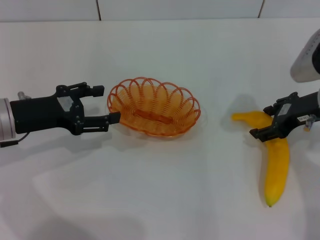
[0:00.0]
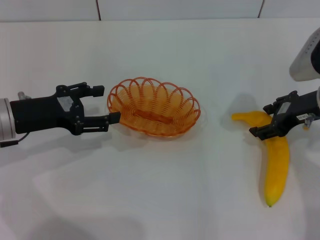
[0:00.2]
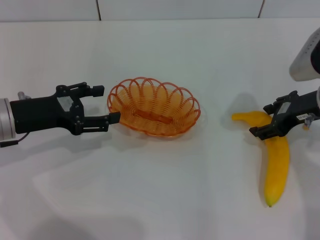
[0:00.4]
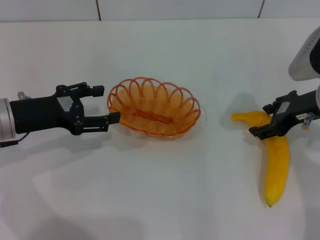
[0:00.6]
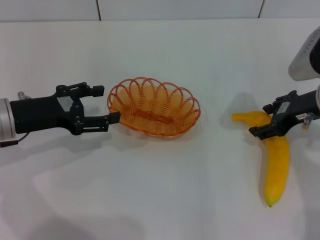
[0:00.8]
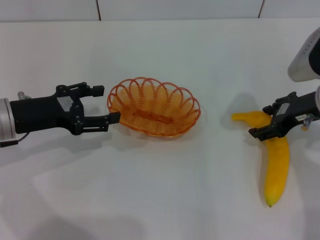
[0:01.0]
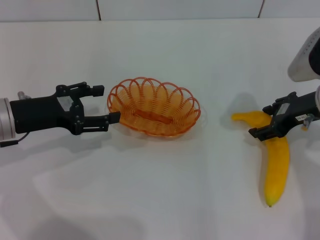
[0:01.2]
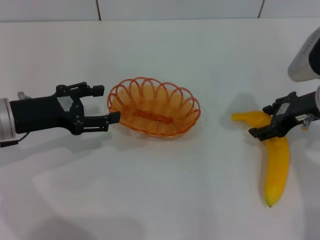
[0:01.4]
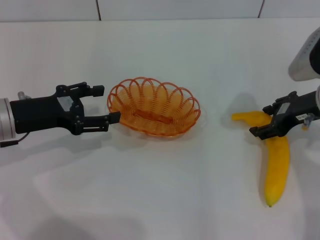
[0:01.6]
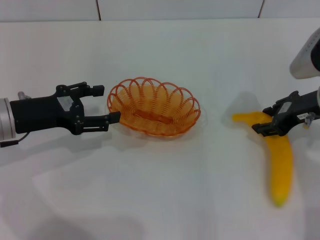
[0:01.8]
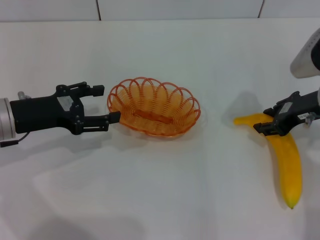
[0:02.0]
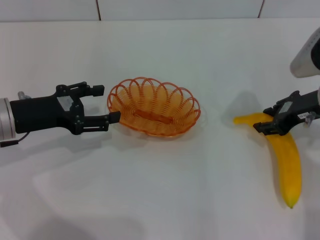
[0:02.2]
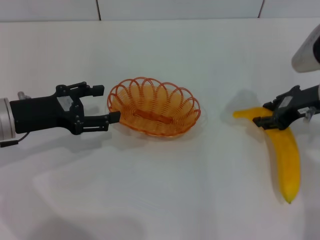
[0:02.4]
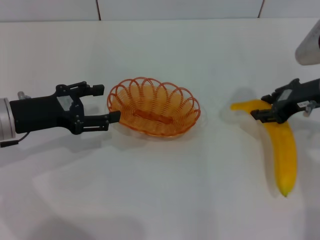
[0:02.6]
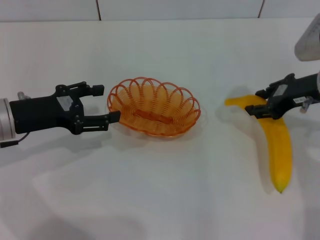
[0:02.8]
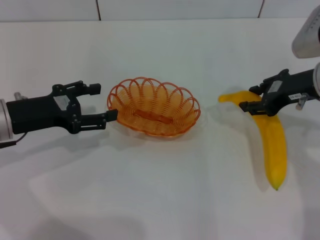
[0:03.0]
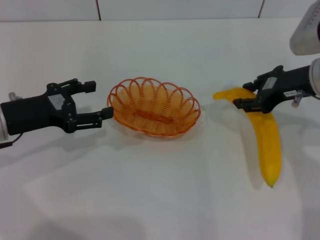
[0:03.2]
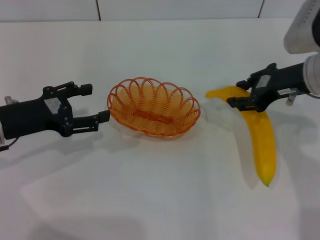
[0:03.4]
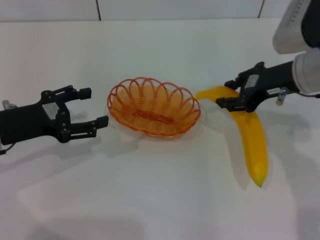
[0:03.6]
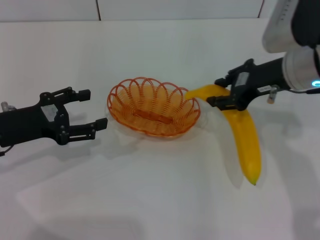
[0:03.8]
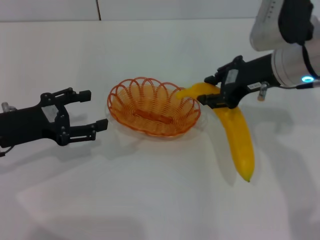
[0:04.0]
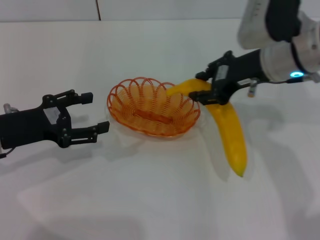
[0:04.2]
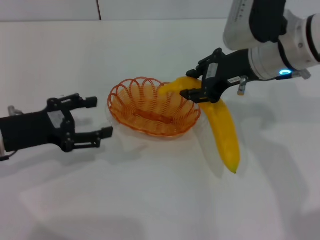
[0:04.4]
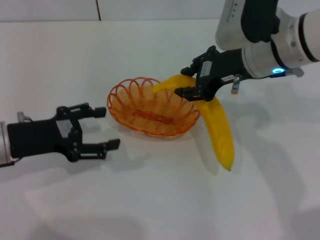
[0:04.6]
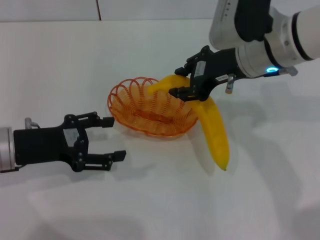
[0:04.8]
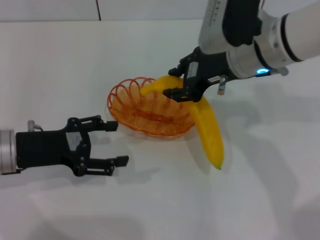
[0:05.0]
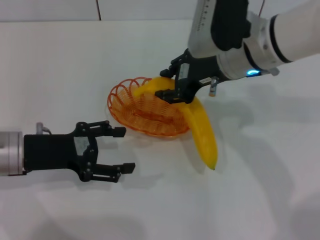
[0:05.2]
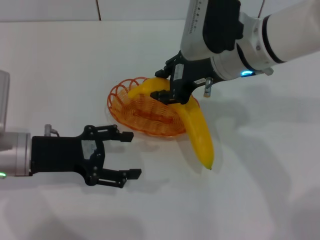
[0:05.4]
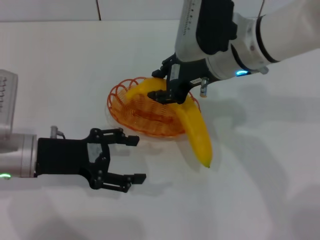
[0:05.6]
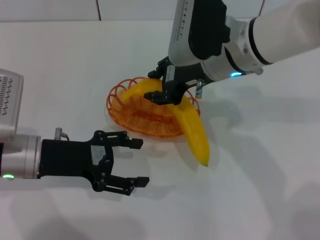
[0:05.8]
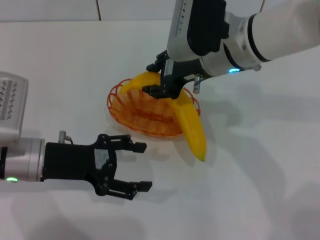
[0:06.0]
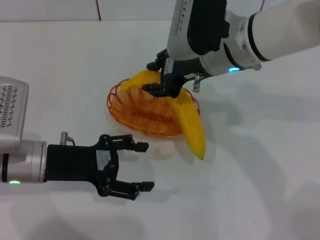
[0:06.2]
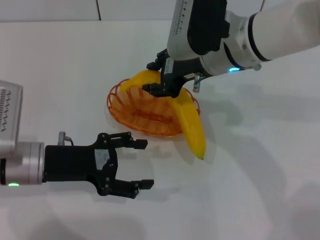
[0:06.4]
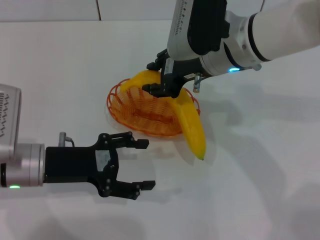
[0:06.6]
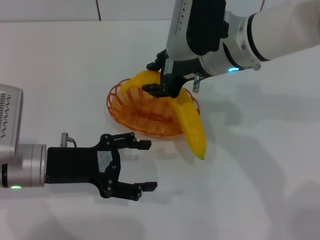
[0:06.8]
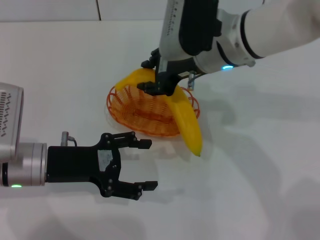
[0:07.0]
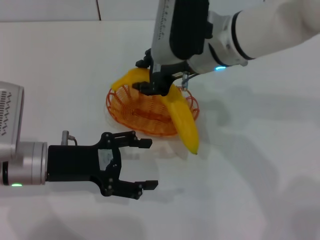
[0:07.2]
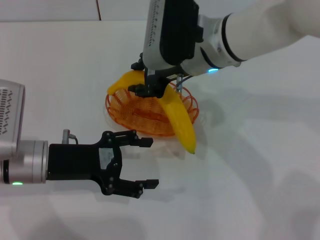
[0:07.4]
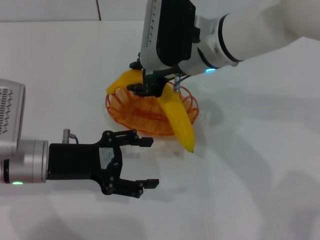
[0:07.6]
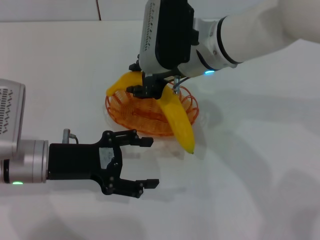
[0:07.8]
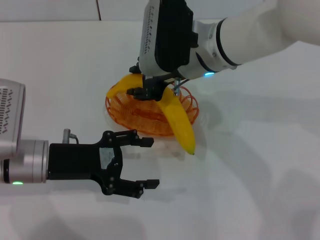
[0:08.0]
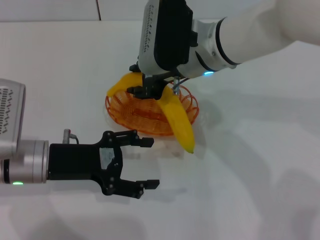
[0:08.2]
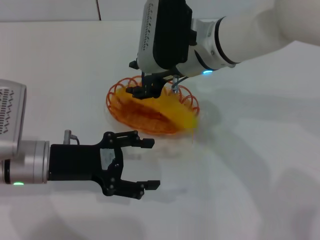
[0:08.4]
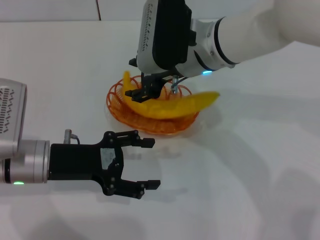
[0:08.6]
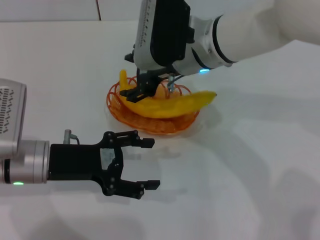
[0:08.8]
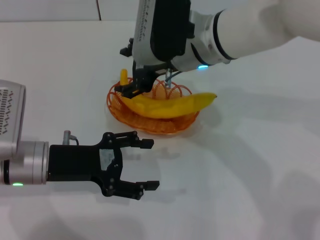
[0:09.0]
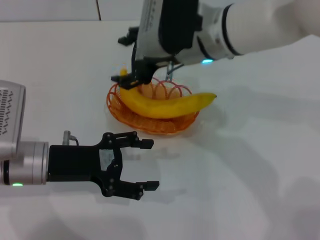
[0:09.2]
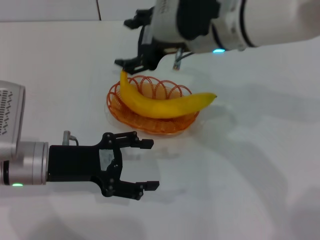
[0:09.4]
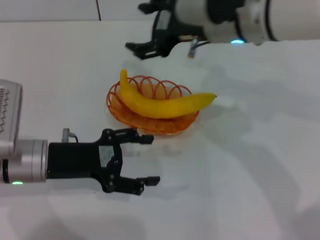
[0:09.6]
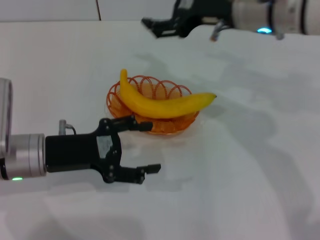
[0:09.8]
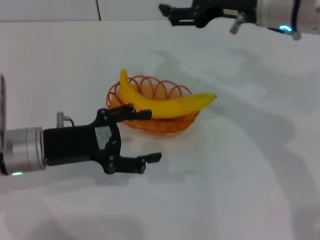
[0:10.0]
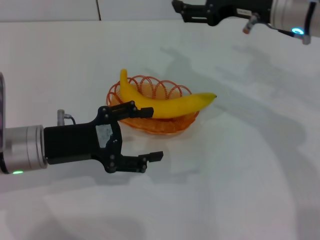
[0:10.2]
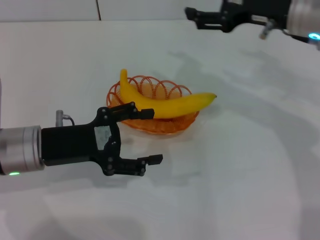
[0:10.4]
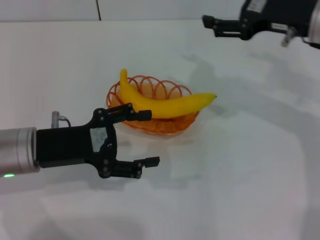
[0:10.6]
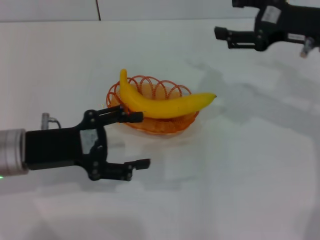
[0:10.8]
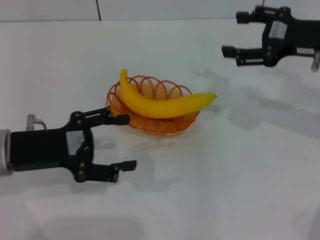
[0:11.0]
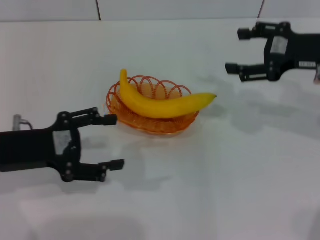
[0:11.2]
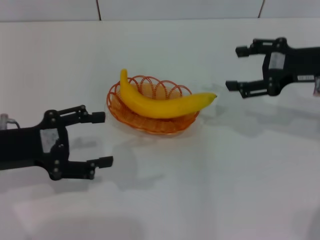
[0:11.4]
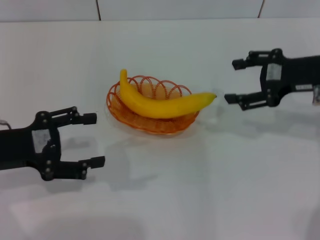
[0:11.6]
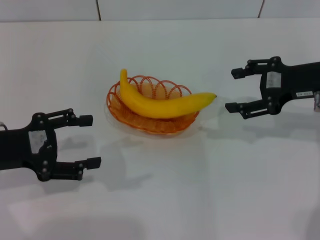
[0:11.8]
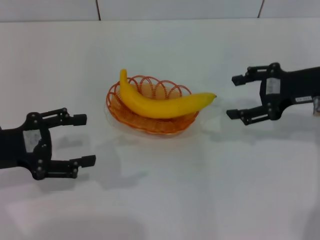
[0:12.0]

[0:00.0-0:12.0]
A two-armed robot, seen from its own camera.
Step, 0:00.0 to 0:02.8: Pick up the banana with the right gripper.
Step, 0:03.0 to 0:09.0: Place the banana into the basket with the right gripper.
0:00.0 to 0:01.6: The two grippers keep their place.
0:01.6 to 0:03.0: The right gripper closes.
0:03.0 to 0:04.4: The right gripper goes about 10 cm to the left.
0:04.4 to 0:06.0: The right gripper shifts some 5 cm to the left. Meanwhile the left gripper is displaced to the right by approximately 5 cm.
0:06.0 to 0:07.6: The grippers make only small movements.
0:07.6 to 0:09.0: The right gripper opens its fingers.
0:09.0 to 0:10.4: The right gripper shifts roughly 15 cm to the right.
0:10.4 to 0:12.0: The right gripper shifts roughly 5 cm to the right. Meanwhile the left gripper is displaced to the left by some 10 cm.

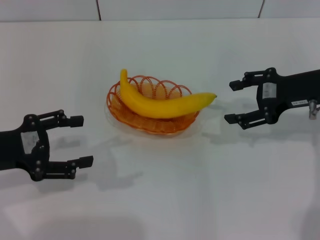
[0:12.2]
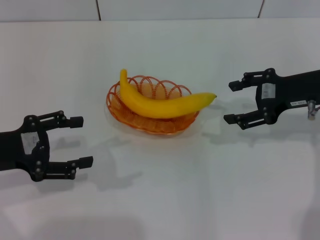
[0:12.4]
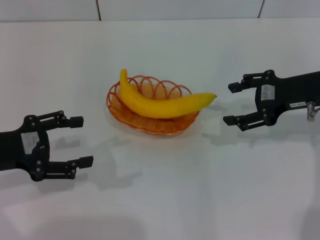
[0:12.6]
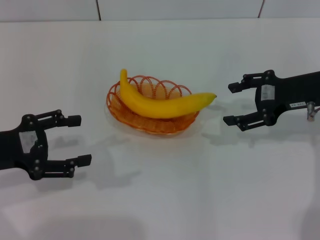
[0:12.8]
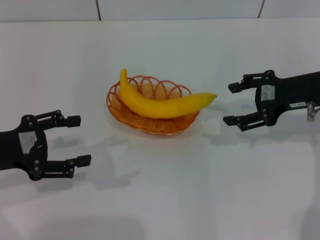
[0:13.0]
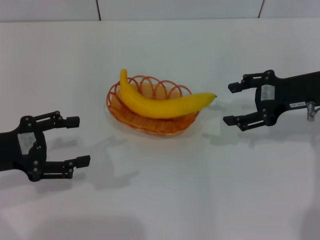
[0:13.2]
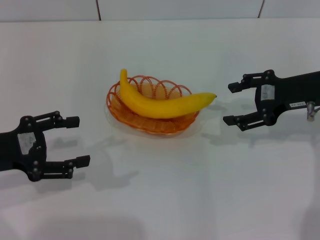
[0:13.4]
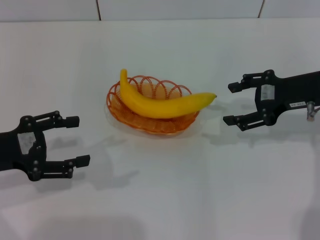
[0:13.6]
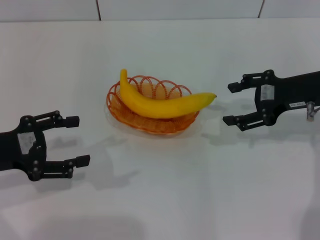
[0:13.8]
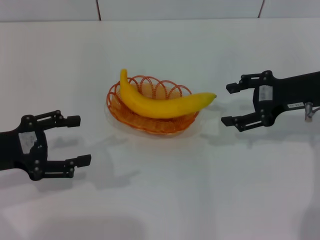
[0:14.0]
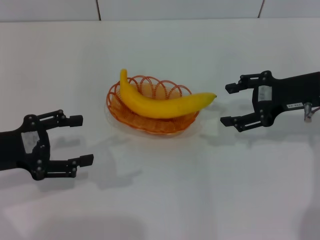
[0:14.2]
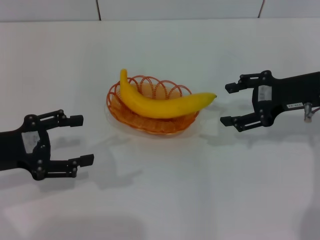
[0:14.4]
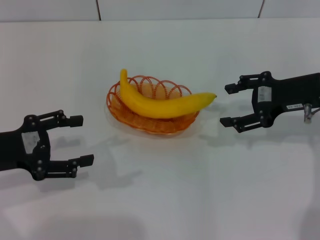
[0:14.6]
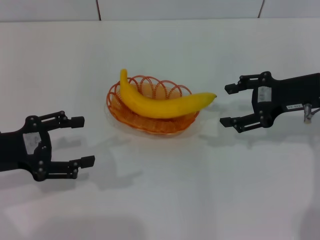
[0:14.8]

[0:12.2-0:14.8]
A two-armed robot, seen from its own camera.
0:12.2 to 0:14.8: The two grippers keep their place.

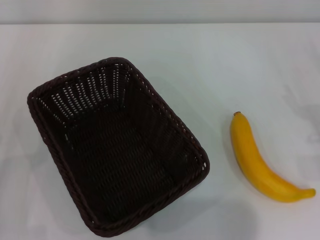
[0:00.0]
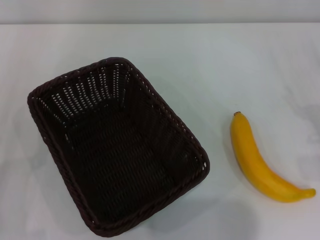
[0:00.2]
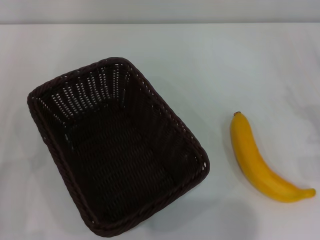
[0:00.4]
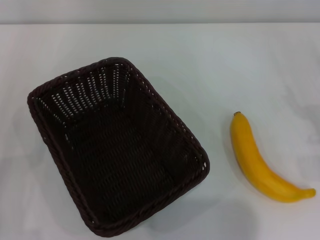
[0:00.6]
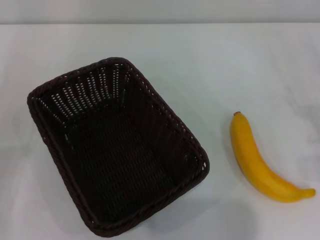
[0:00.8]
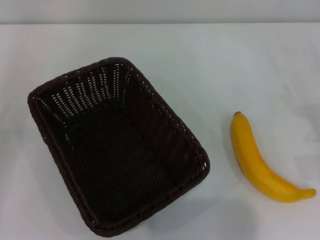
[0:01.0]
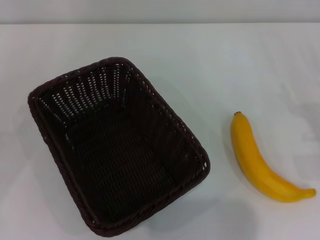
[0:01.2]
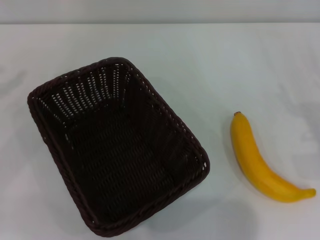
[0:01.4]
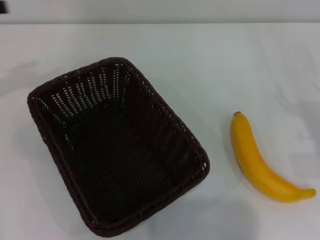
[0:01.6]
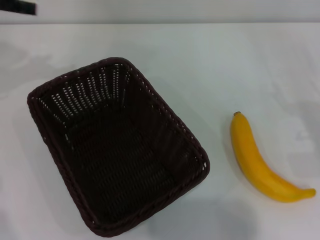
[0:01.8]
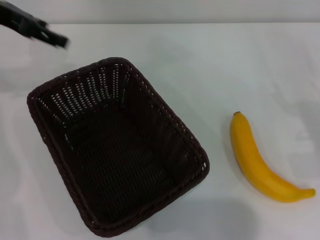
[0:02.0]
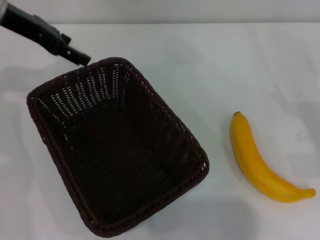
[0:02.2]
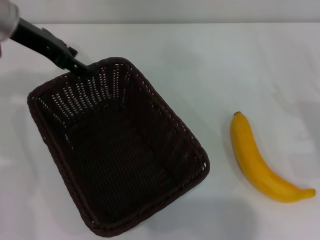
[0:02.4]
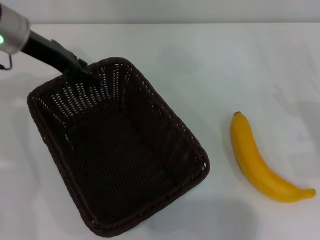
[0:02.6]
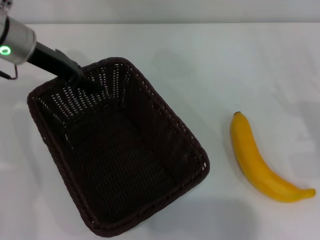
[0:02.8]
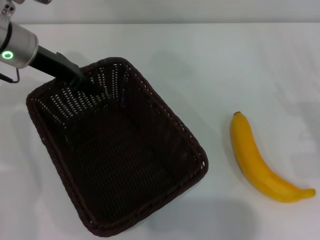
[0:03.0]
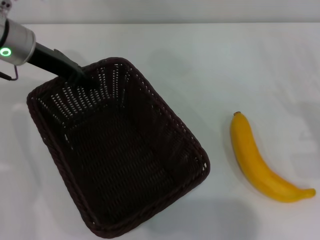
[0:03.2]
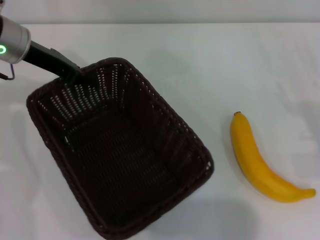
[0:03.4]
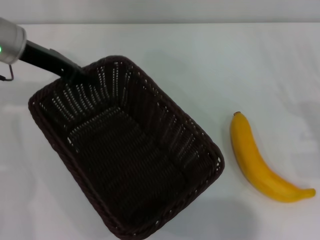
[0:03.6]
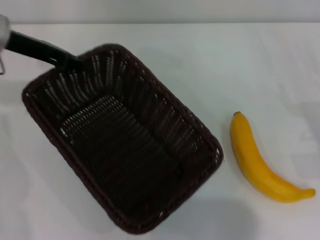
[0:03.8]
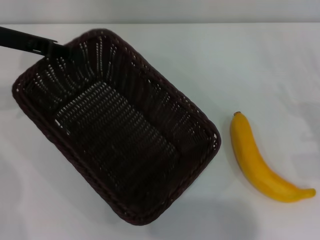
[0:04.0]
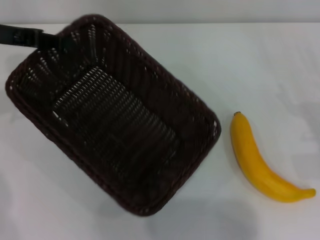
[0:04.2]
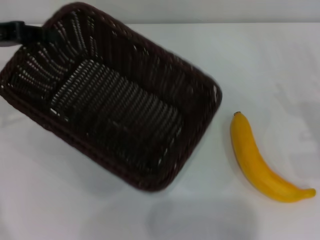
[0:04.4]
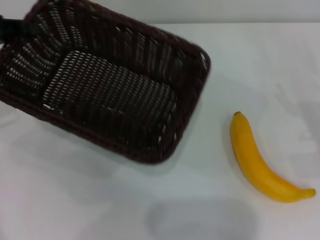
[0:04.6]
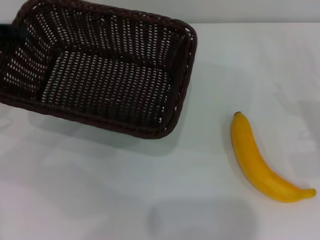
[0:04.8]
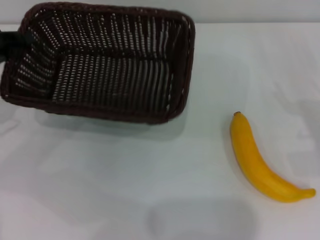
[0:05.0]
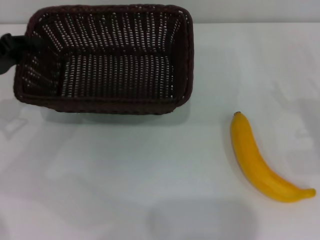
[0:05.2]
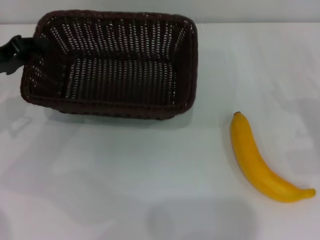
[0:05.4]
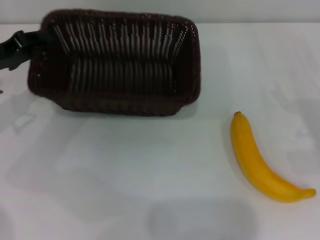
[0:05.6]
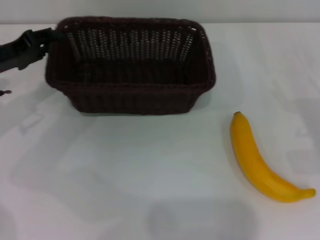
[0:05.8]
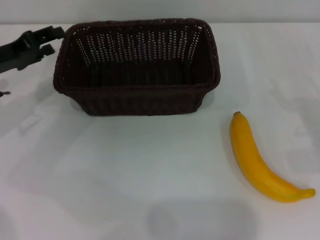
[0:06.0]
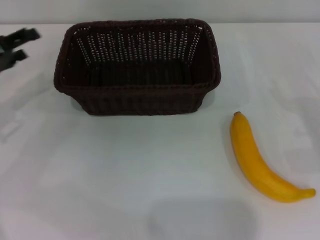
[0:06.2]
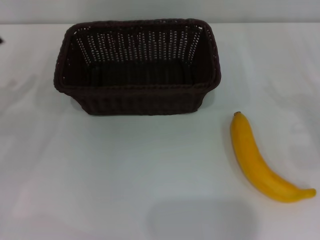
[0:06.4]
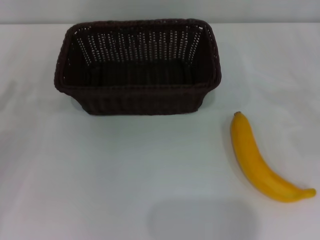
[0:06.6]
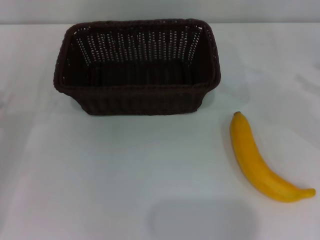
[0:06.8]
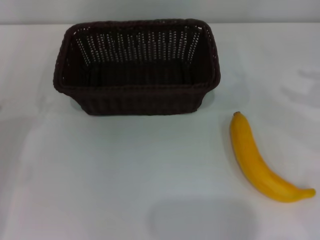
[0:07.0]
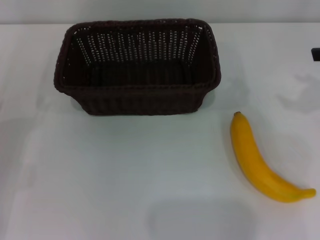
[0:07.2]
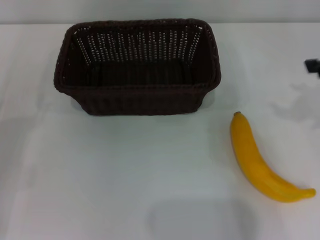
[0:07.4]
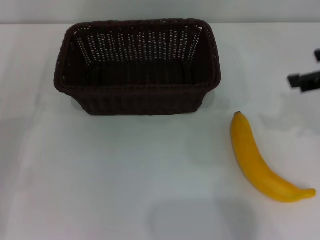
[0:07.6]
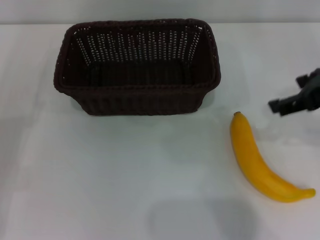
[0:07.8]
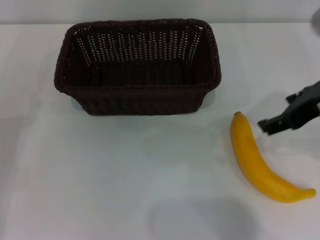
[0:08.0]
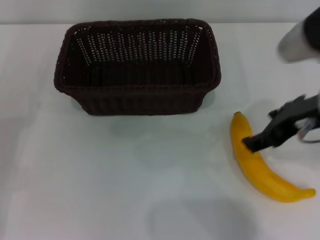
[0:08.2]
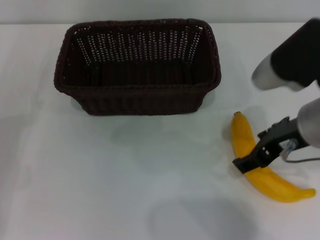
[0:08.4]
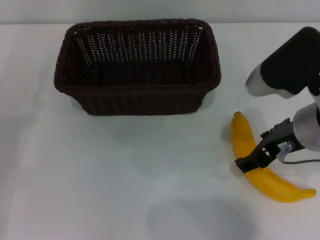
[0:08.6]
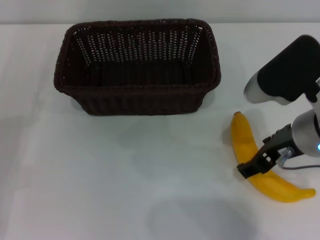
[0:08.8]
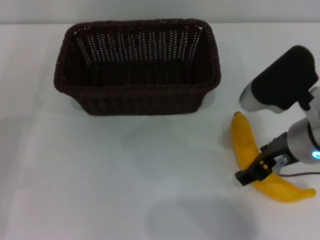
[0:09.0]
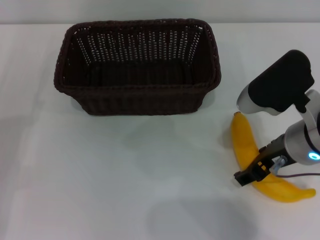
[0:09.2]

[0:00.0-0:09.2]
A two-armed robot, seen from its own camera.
Step, 0:00.0 to 0:04.2: Pick up the dark basket with the left gripper.
Step, 0:04.4 to 0:06.0: Place the dark basket in the center of view with the left gripper.
0:01.6 to 0:03.0: The left gripper is displaced to the right and downward by about 15 cm, and closes its fingers.
0:03.0 to 0:04.6: The left gripper is displaced to the left and backward by roughly 15 cm, and closes up.
0:04.6 to 0:06.2: The left gripper goes roughly 10 cm downward, and opens.
0:06.2 to 0:07.6: The left gripper shifts approximately 15 cm backward and downward. The right gripper goes some 25 cm upward and to the left.
0:07.6 to 0:09.2: The right gripper moves downward and to the left, some 15 cm.
